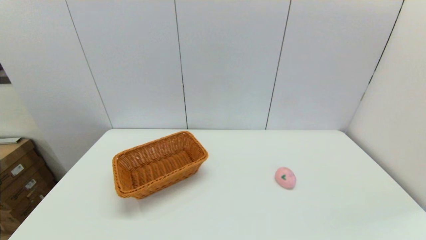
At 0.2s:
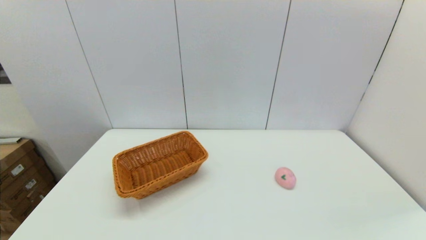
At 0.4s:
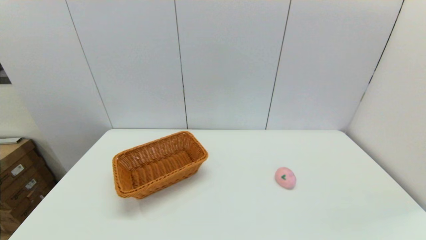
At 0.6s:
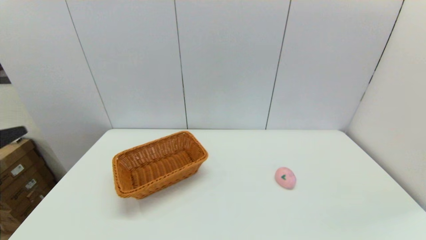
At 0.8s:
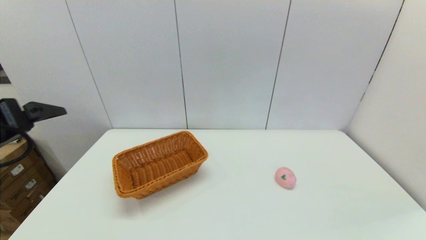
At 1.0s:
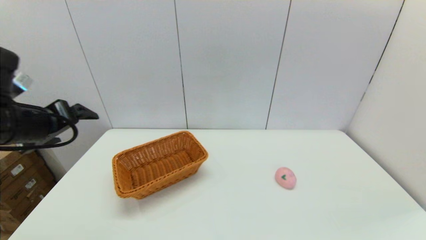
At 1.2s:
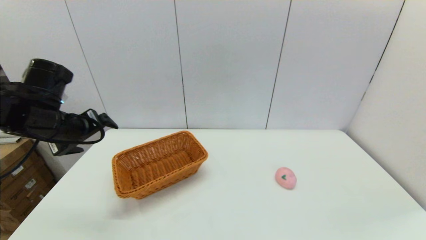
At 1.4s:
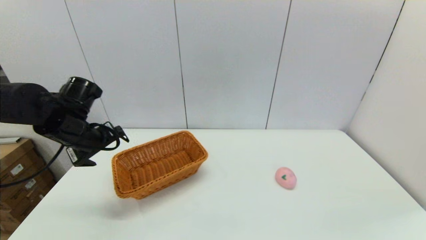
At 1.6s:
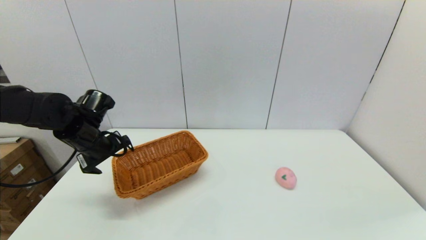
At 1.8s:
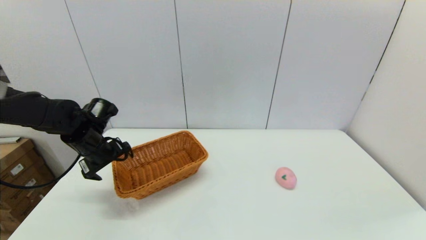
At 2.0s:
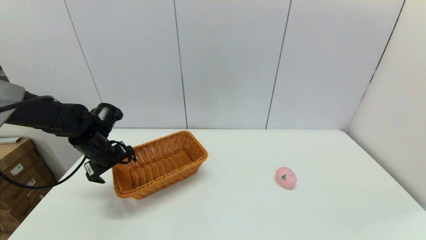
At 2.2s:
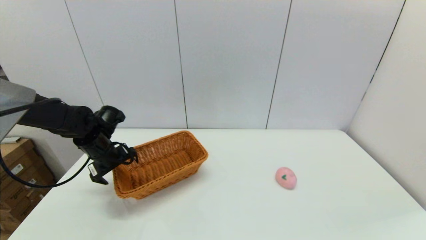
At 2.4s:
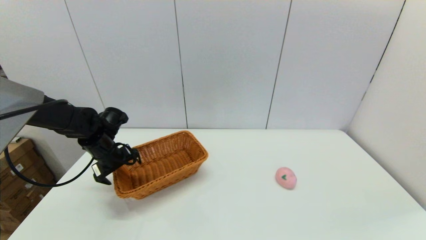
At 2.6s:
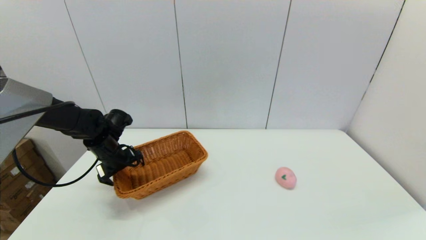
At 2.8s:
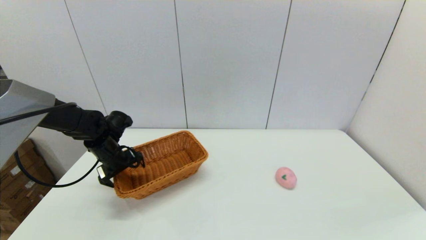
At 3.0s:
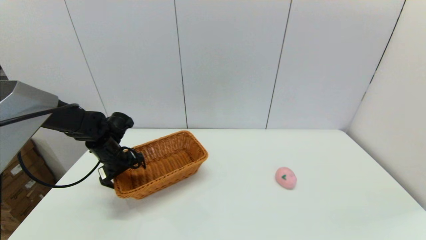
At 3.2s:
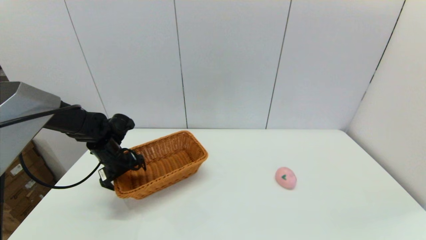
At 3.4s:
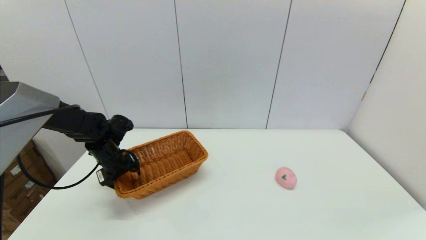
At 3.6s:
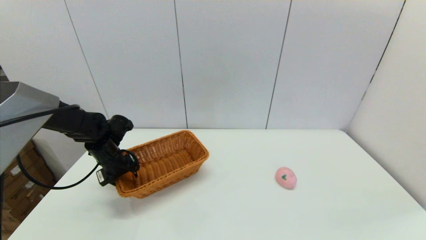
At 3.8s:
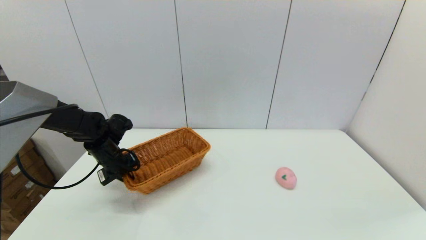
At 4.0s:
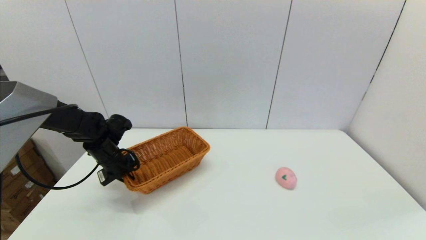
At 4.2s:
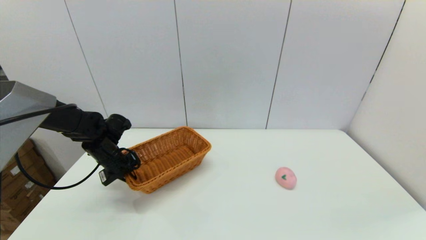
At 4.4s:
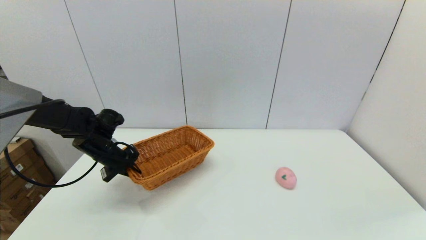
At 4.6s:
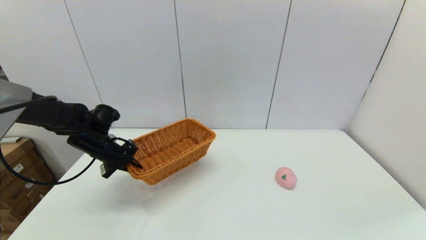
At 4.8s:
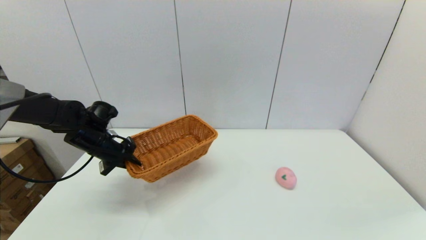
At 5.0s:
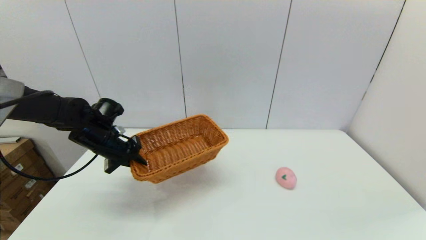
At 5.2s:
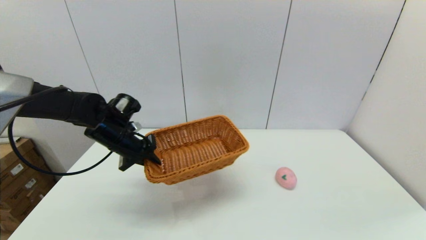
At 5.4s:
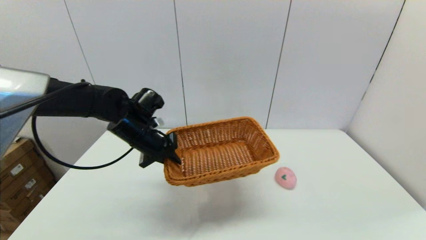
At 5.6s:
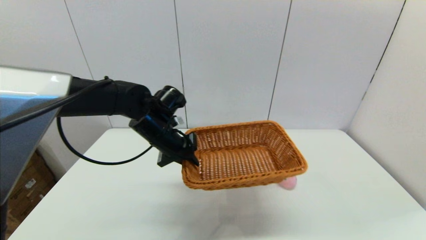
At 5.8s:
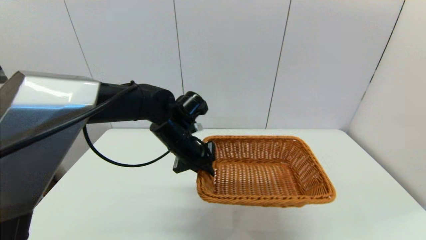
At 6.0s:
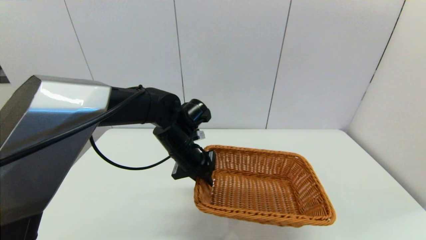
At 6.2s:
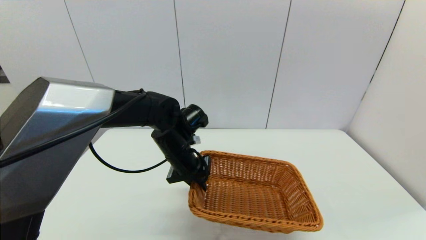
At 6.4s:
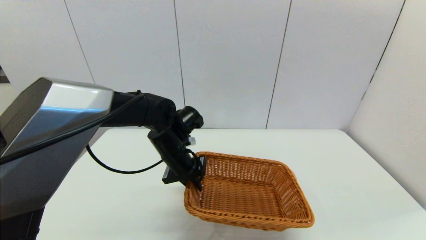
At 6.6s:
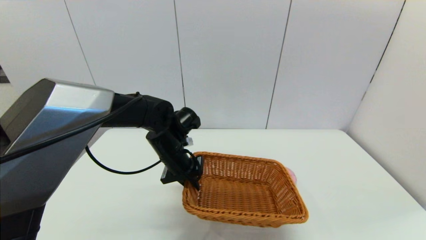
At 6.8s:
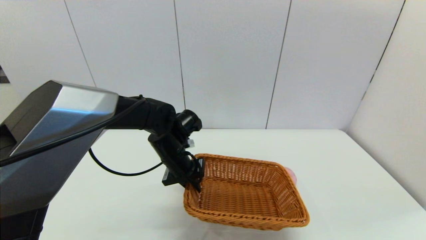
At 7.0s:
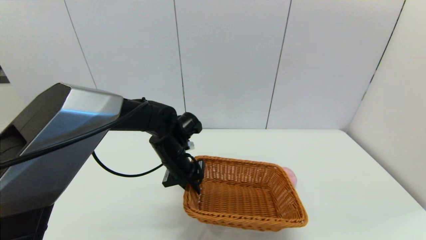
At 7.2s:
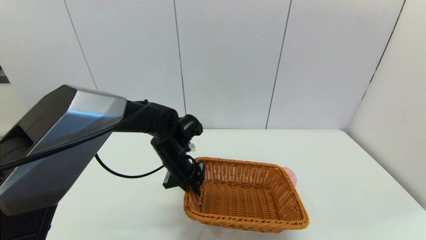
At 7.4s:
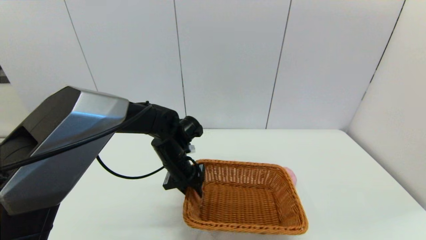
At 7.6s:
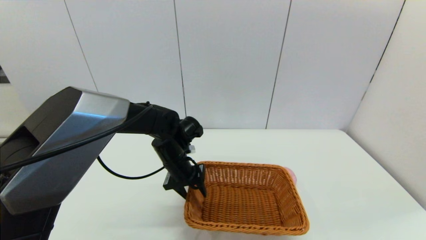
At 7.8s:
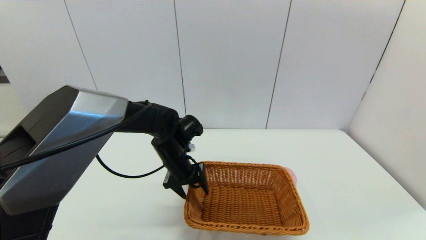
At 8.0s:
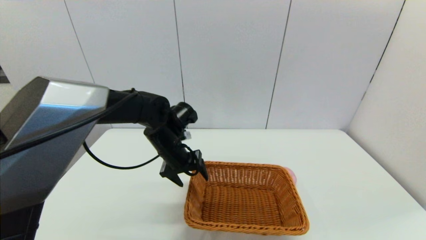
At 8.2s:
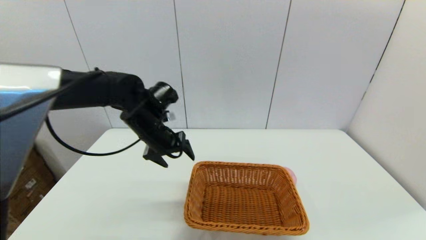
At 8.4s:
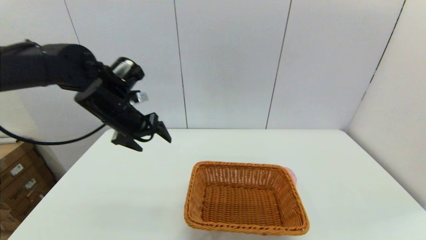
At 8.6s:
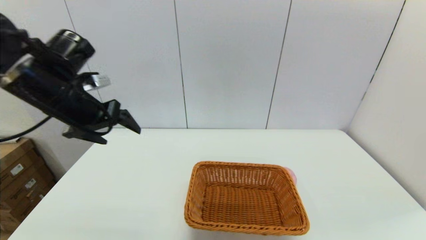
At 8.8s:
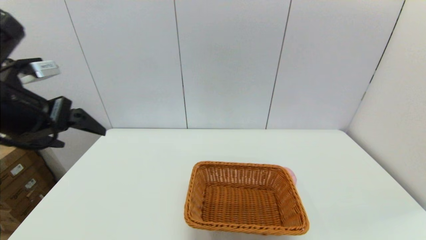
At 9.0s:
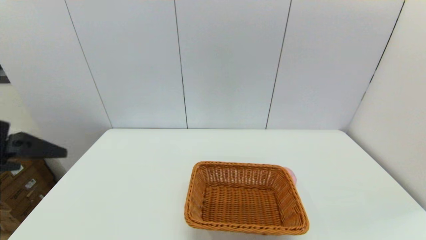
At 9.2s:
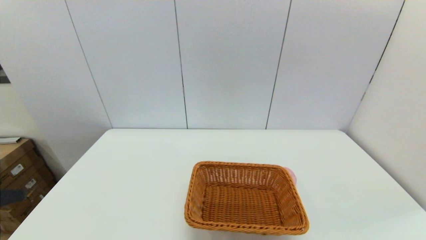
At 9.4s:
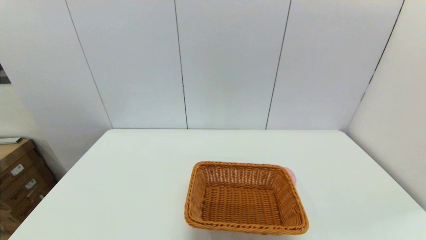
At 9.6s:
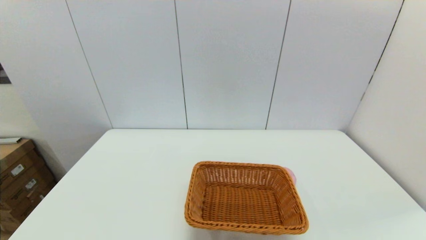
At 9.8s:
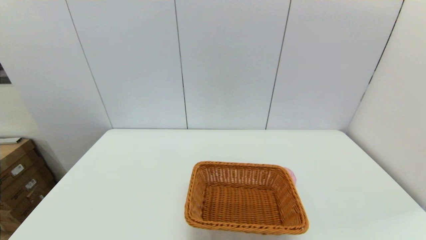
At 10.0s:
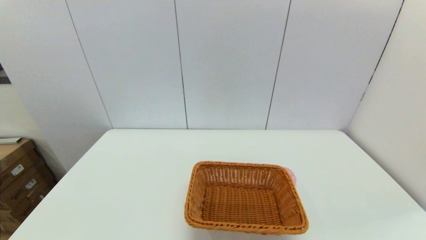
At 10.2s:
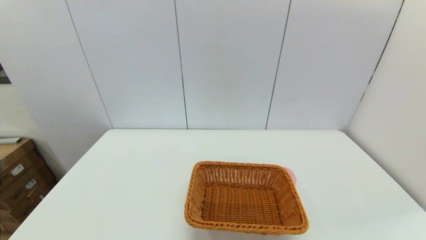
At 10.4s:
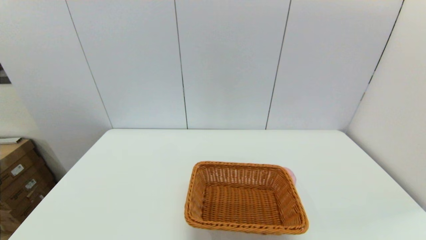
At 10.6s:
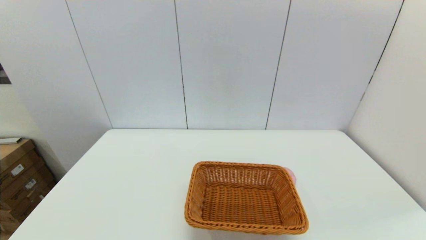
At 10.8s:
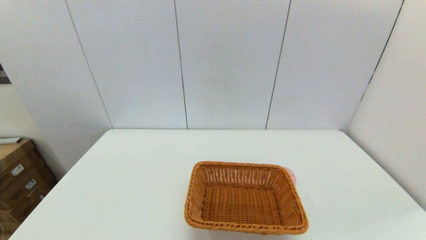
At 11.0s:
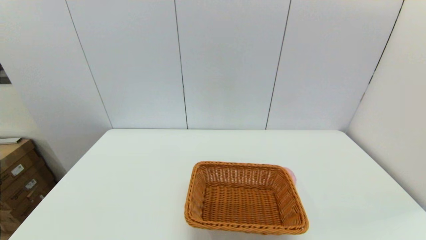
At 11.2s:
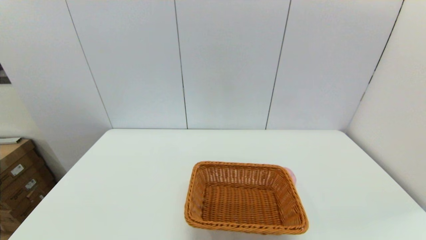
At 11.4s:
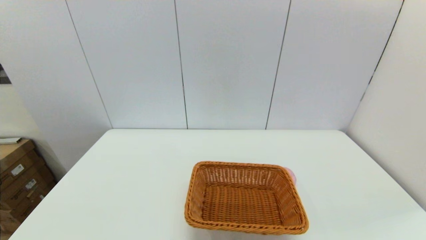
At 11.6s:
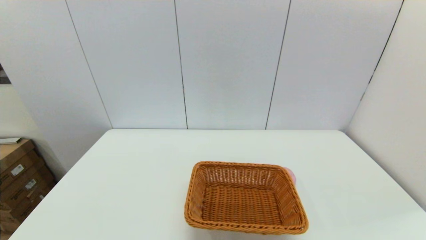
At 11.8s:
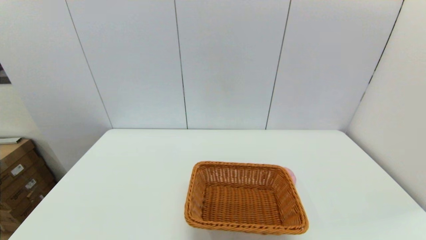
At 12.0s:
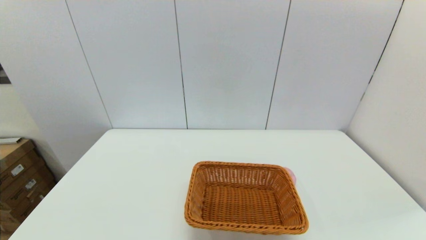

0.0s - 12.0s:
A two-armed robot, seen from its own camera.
Step, 0.0s - 3.8s: Grasp the light basket with the left gripper.
Step, 4.0s - 7.8s: Place the light basket on the middle of the table with the left gripper.
0.0s - 1.6s: The left gripper moves forward, about 35 cm.
1.6s - 3.0s: The left gripper heads downward, covering some 5 cm.
3.0s - 4.4s: The left gripper closes.
4.4s - 6.0s: The left gripper travels to the right by some 20 cm.
6.0s - 7.6s: The left gripper moves roughly 5 cm, and opens up.
7.6s - 9.0s: The left gripper goes about 35 cm upward, backward and to the left, and opens.
9.0s - 10.4s: The left gripper is displaced backward and downward by about 25 cm.

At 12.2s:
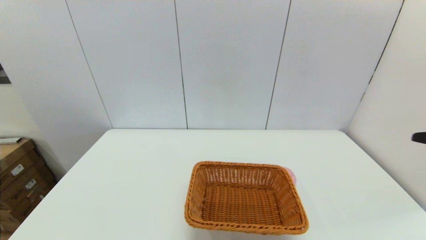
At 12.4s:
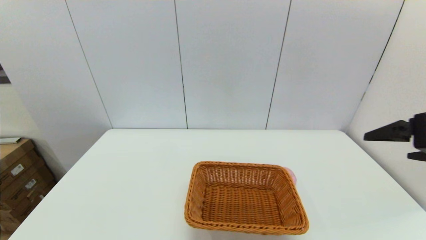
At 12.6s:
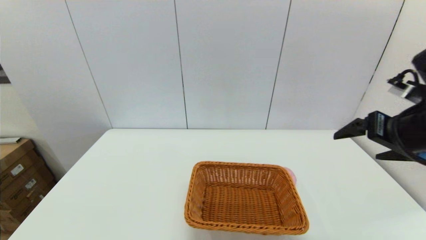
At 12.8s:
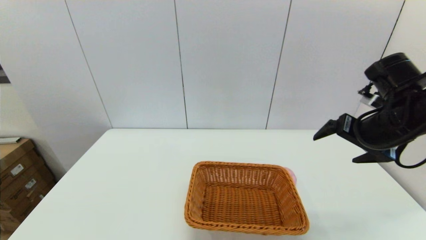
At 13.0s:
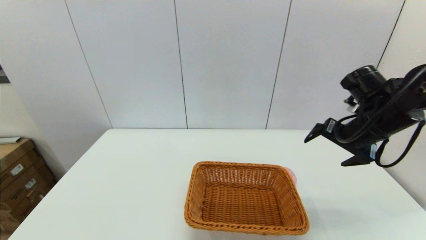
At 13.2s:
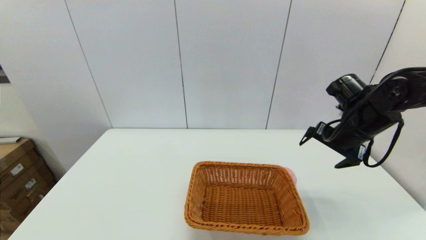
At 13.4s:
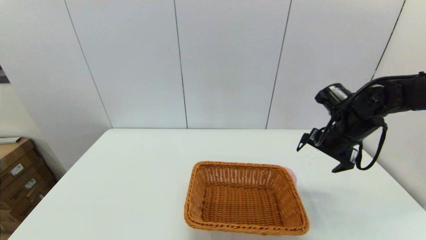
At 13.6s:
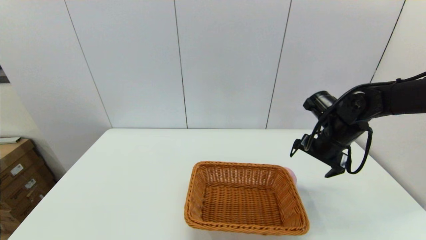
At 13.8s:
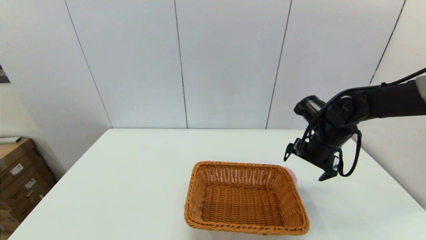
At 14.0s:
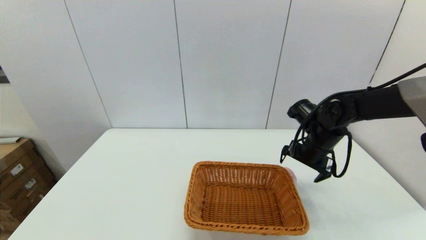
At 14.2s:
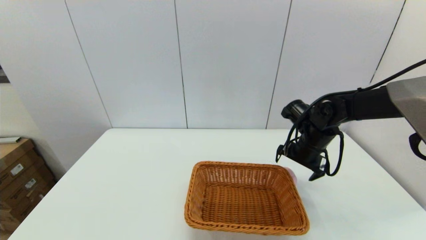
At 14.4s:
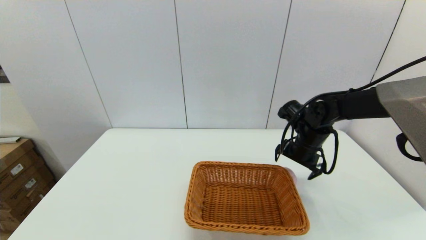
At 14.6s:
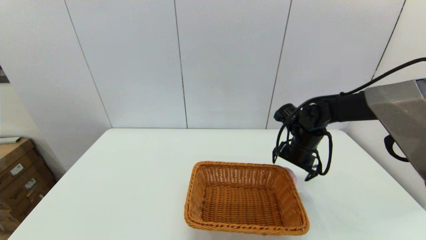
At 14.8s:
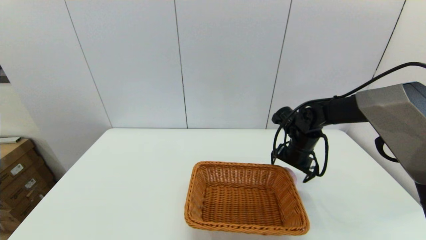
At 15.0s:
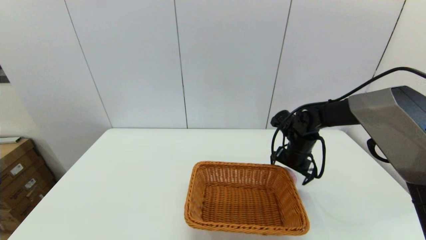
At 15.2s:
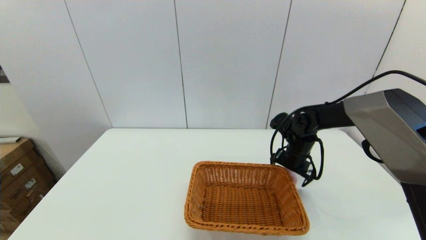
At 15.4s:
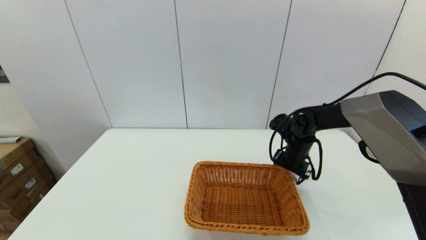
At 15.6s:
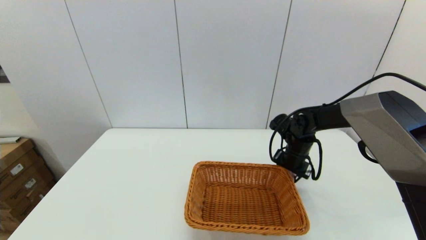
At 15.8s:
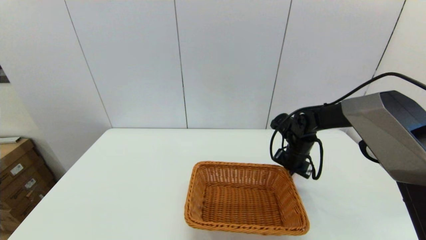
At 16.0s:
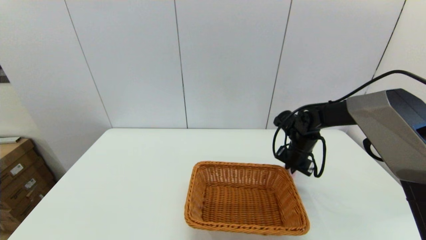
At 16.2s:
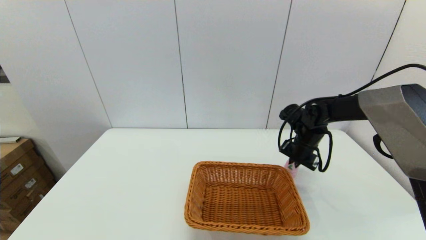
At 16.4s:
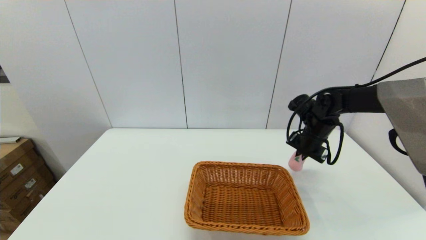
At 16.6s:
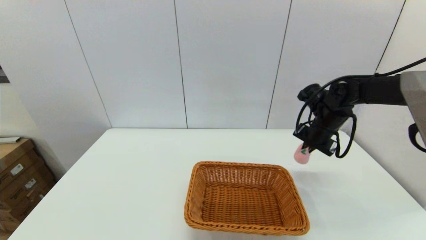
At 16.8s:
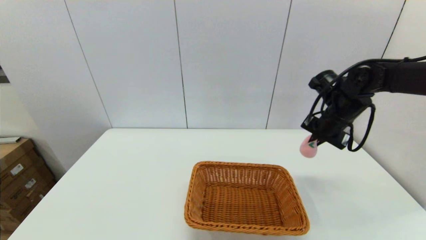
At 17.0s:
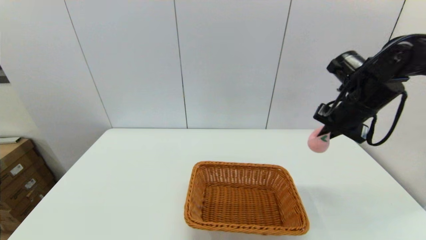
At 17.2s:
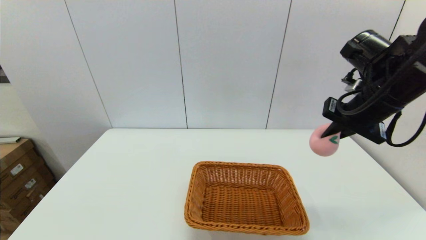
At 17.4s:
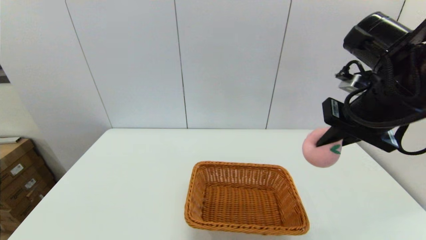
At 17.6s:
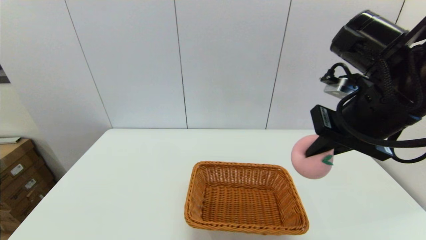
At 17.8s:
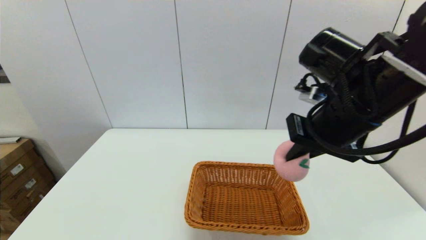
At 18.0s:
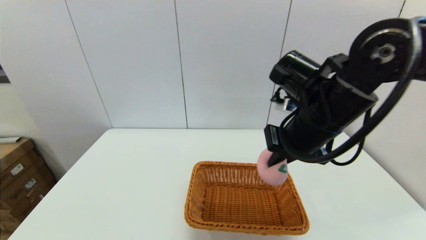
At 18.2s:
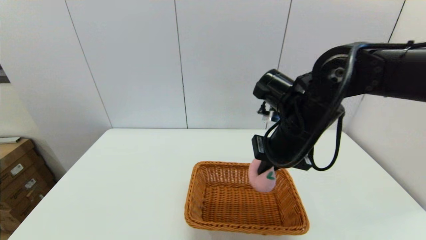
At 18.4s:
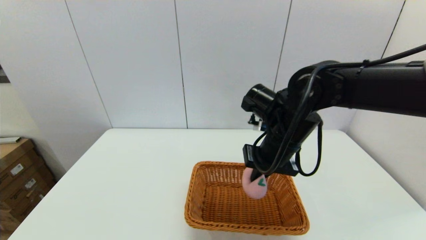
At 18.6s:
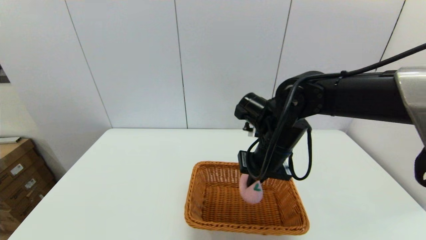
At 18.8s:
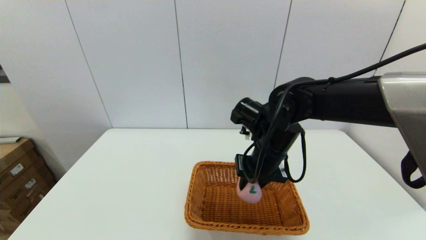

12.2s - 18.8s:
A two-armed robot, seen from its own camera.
Step, 12.2s - 15.8s: Grasp the peach with the right gripper.
12.2s - 13.8s: The right gripper travels forward and downward by approximately 30 cm.
13.8s - 15.4s: The right gripper moves downward and forward, roughly 10 cm.
15.4s - 17.2s: The right gripper moves upward and backward, approximately 25 cm, and closes its fingers.
17.2s - 18.8s: The right gripper goes approximately 20 cm to the left and downward.
